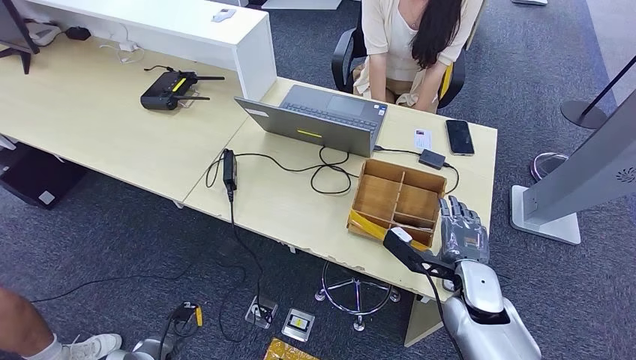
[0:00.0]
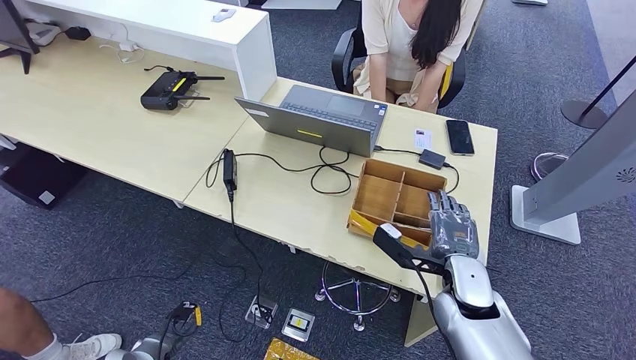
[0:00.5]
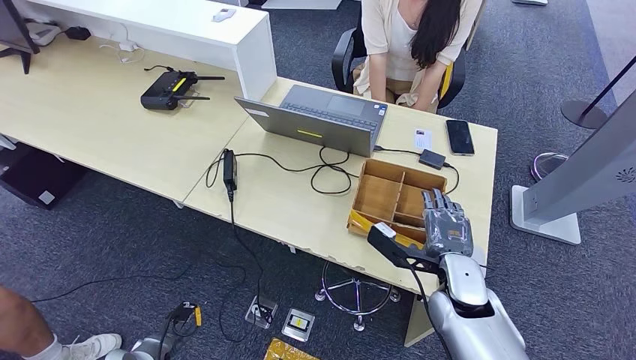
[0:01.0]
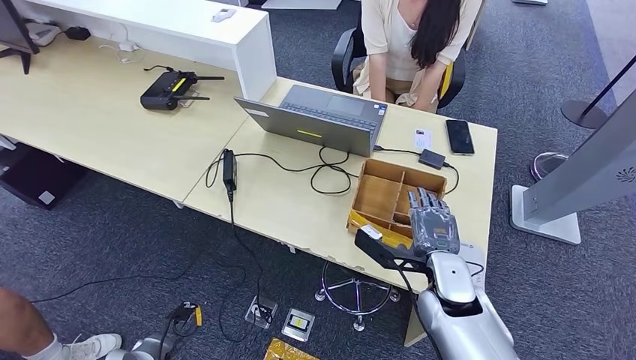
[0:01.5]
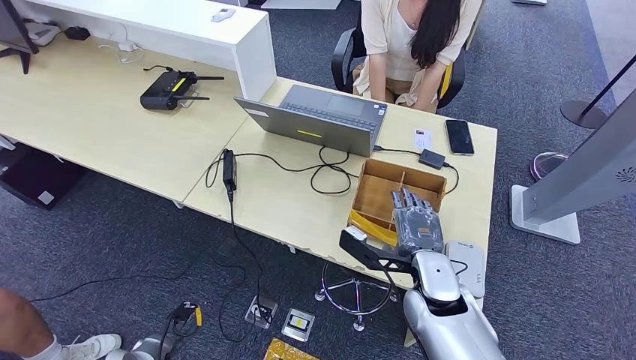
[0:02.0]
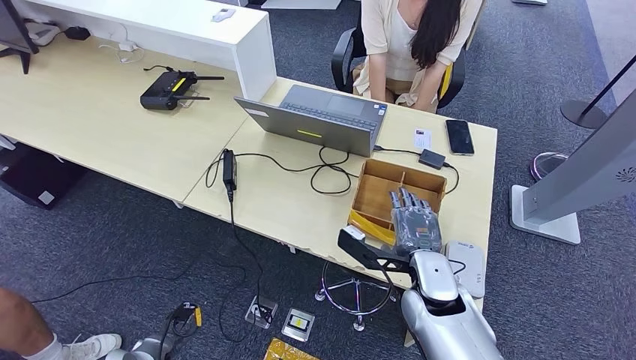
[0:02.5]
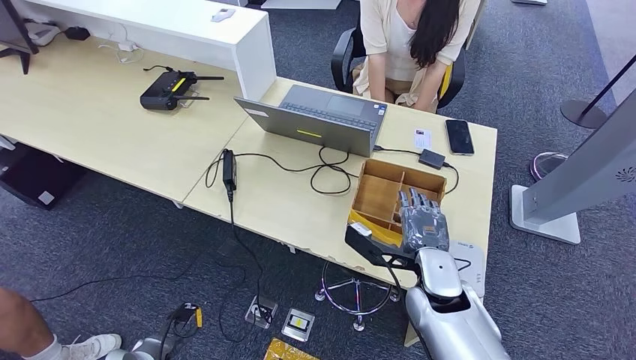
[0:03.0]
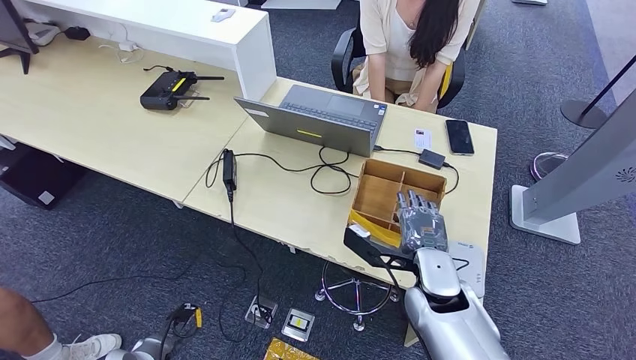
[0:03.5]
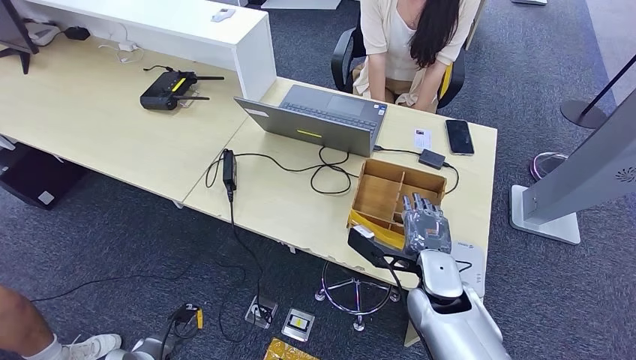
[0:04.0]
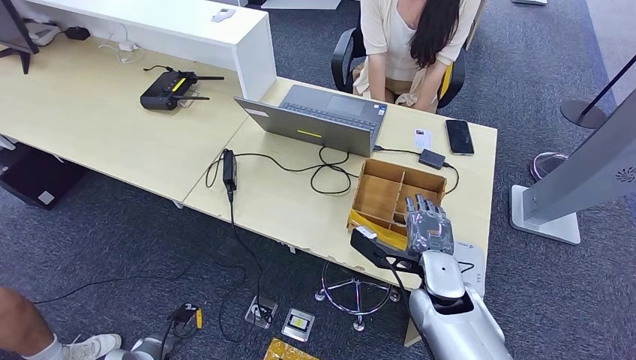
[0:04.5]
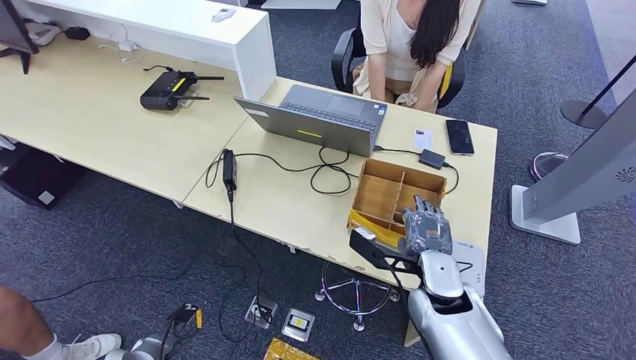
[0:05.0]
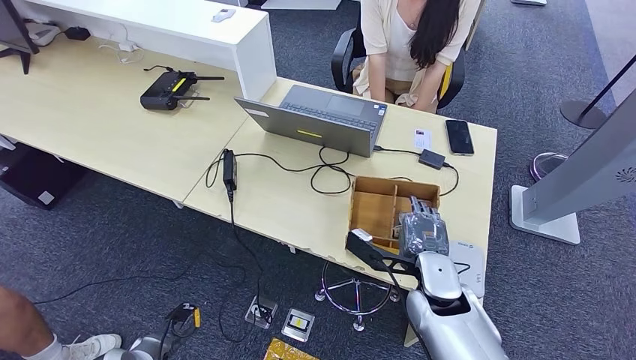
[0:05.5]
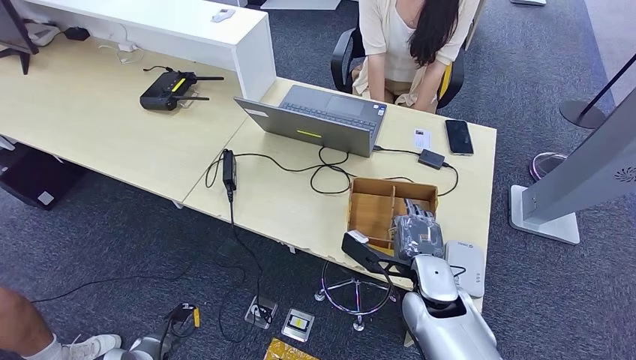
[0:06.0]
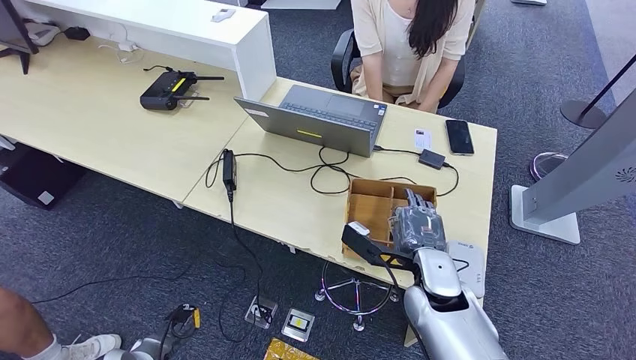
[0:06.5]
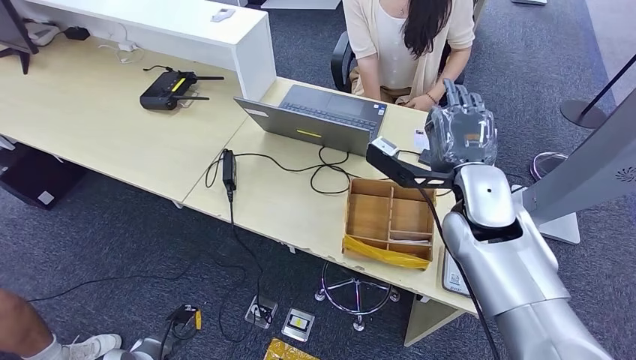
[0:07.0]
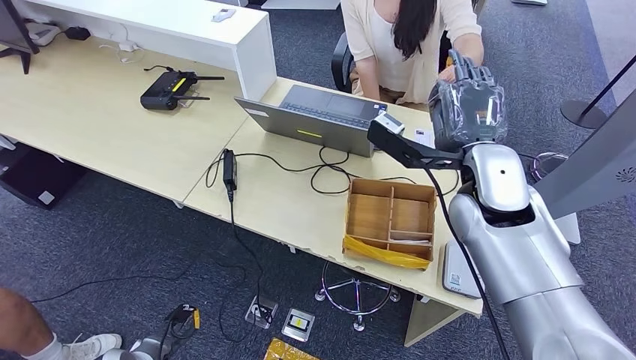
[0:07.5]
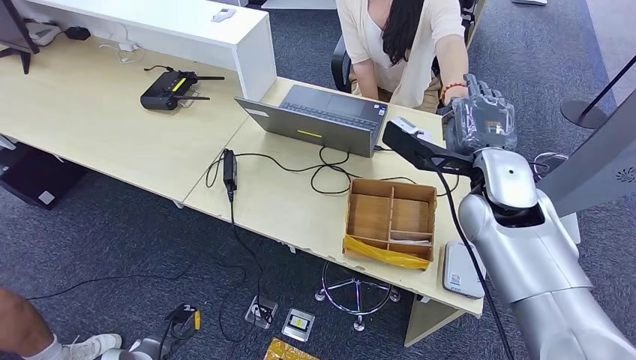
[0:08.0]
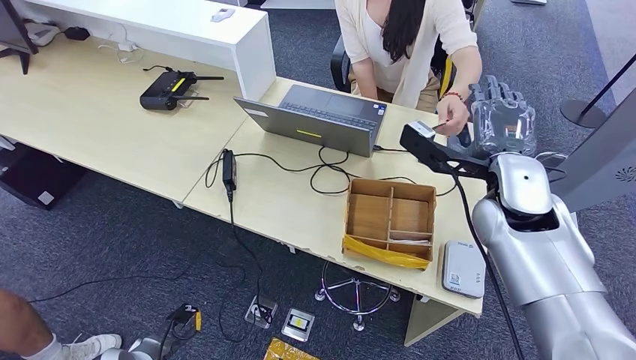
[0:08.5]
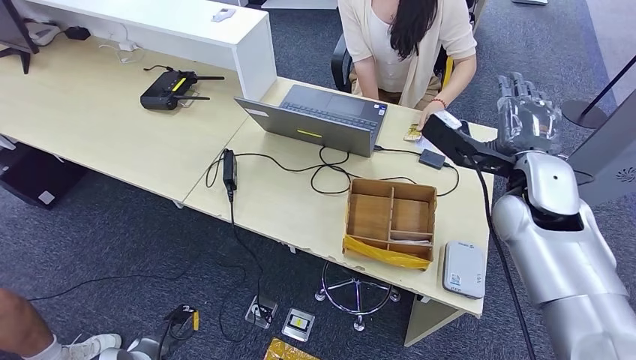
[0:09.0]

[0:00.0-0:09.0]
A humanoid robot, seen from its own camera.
Step, 0:00.0 to 0:06.0: Pick up the room key from the key card box.
Step, 0:07.0 to 0:09.0: Hand the room key to the person.
0:00.0 to 0:02.0: The right hand goes approximately 5 cm to the left.
0:02.0 to 0:04.5: The hands stay close to where they were, moving slightly.
0:04.5 to 0:07.0: The right hand heads upward and forward, covering some 15 cm.
0:07.0 to 0:09.0: The right hand is displaced to the right by about 5 cm.
